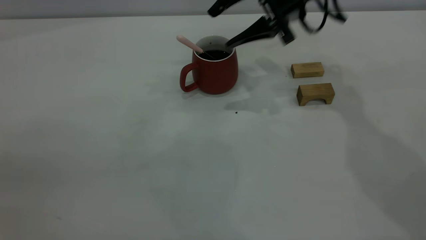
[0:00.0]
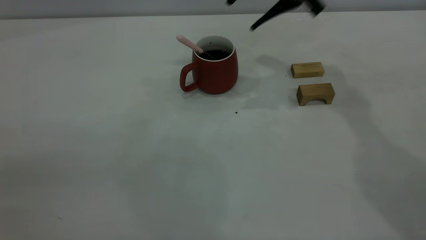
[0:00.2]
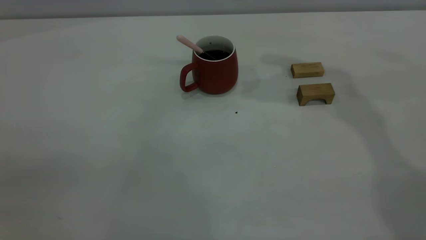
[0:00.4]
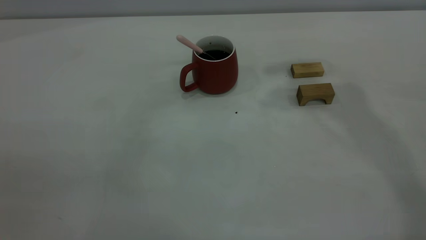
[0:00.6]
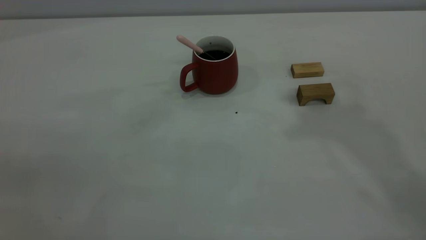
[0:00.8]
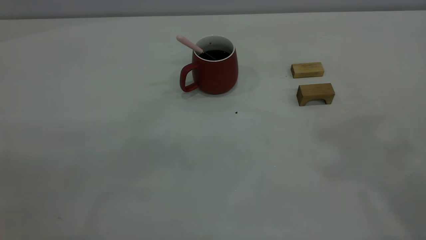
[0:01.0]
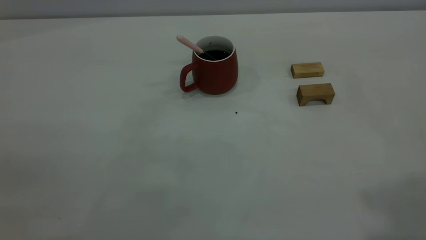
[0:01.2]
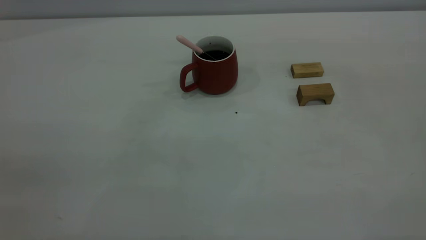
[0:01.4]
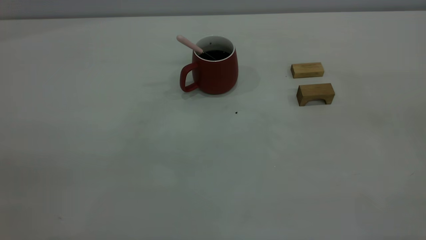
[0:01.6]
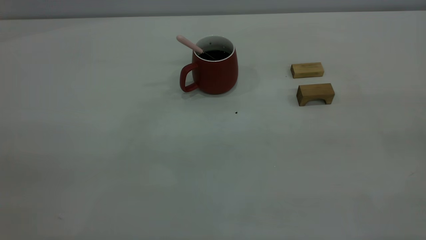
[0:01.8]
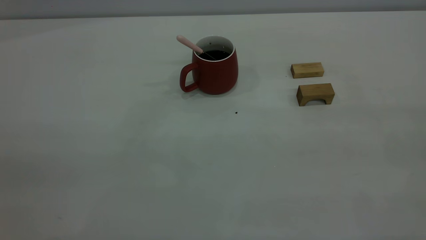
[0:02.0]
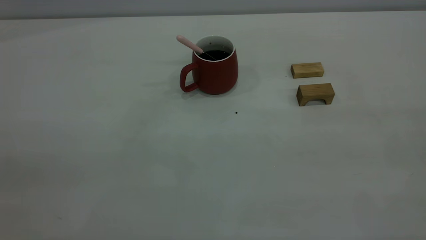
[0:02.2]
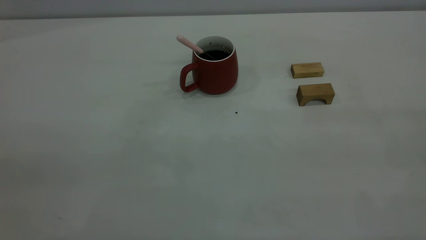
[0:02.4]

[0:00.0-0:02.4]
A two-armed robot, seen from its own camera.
0:00.0 to 0:01.2: The right gripper heads backward, upward and to the right, covering approximately 50 cm, and closes its fingers.
